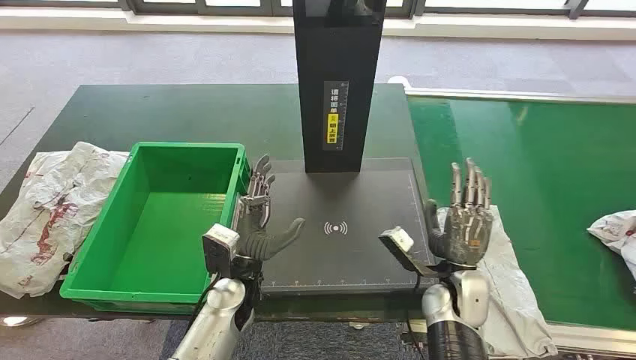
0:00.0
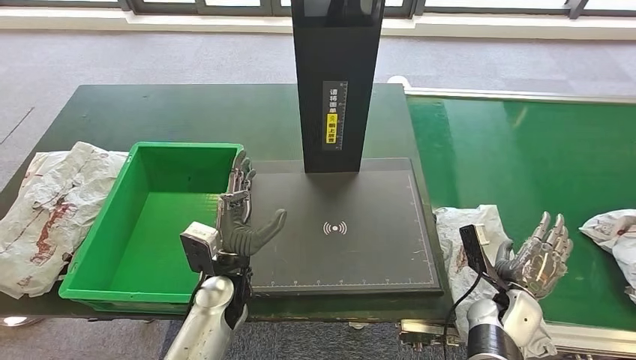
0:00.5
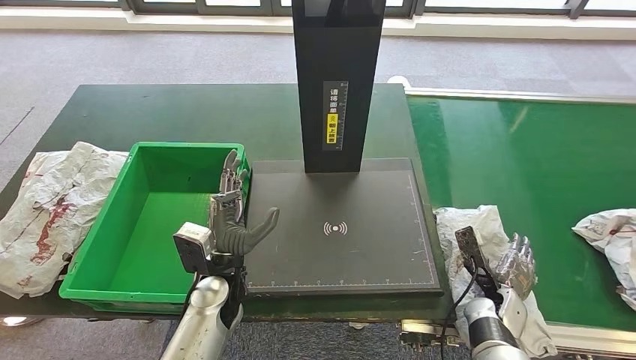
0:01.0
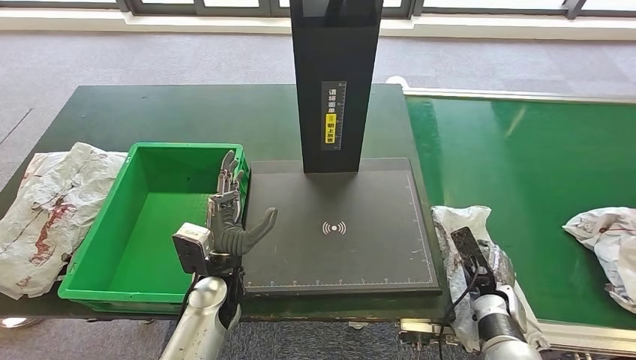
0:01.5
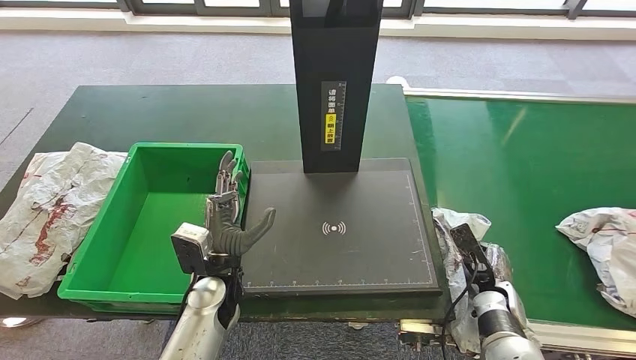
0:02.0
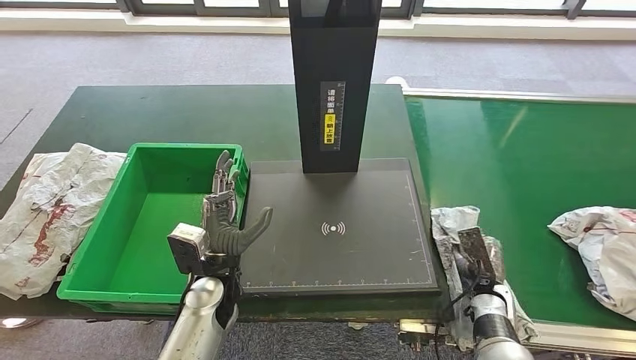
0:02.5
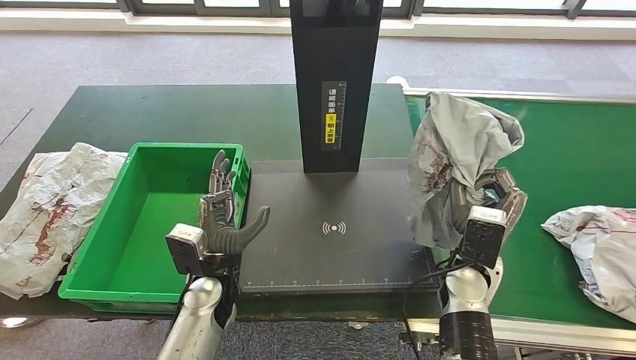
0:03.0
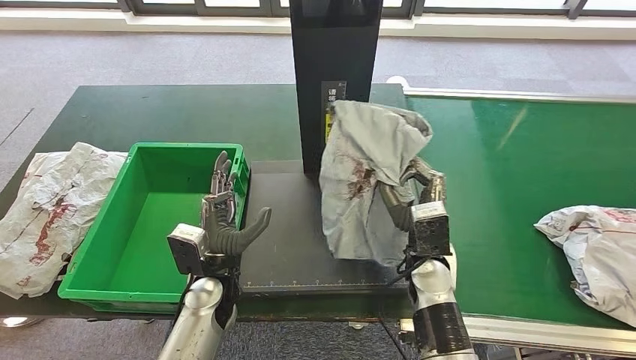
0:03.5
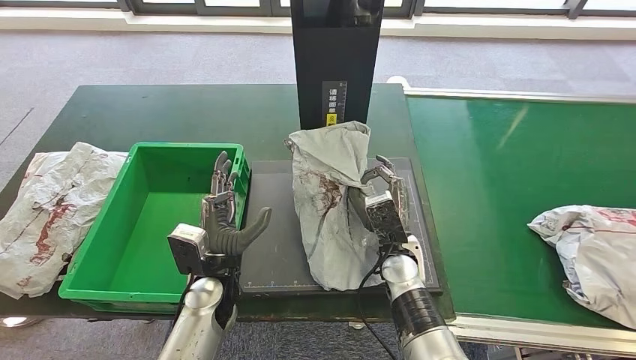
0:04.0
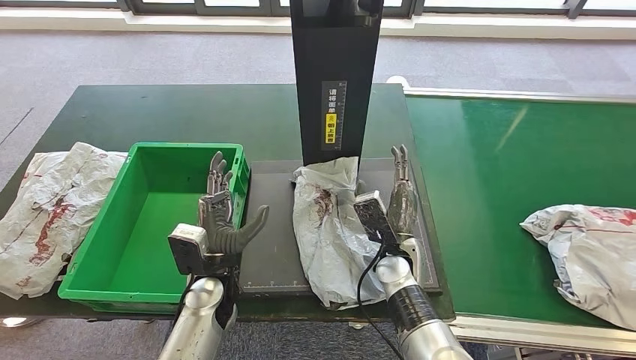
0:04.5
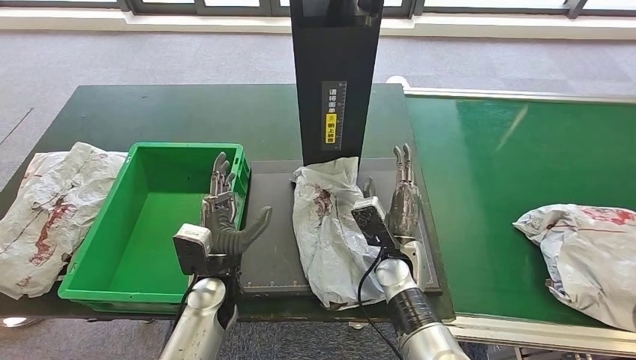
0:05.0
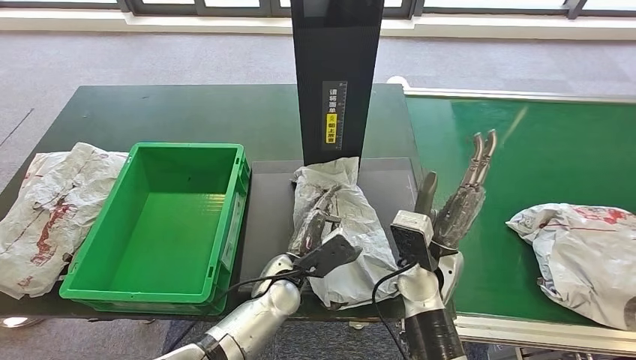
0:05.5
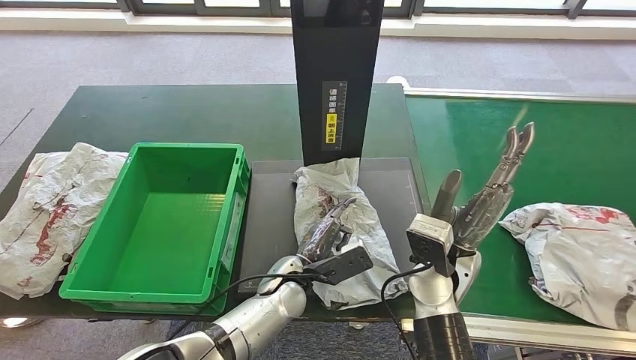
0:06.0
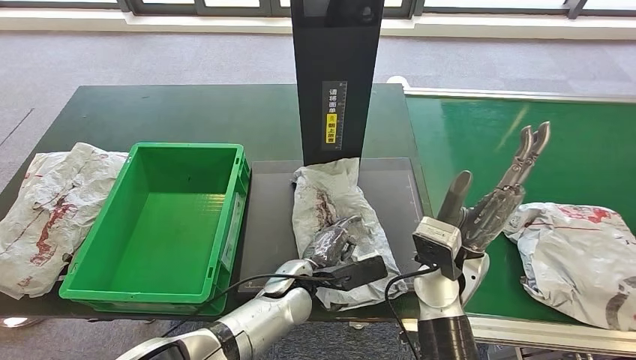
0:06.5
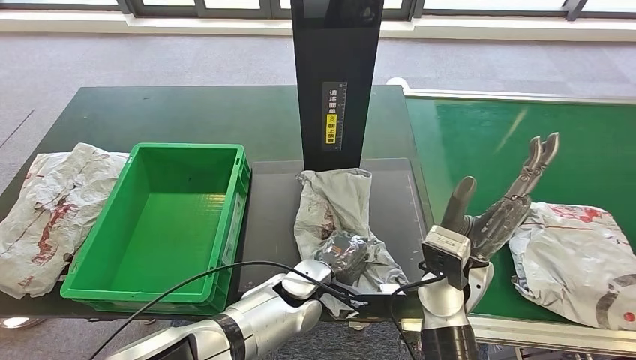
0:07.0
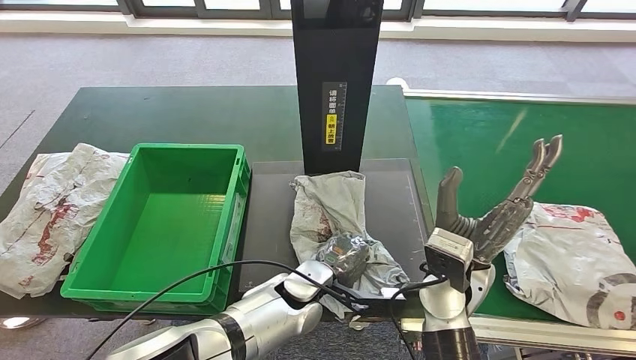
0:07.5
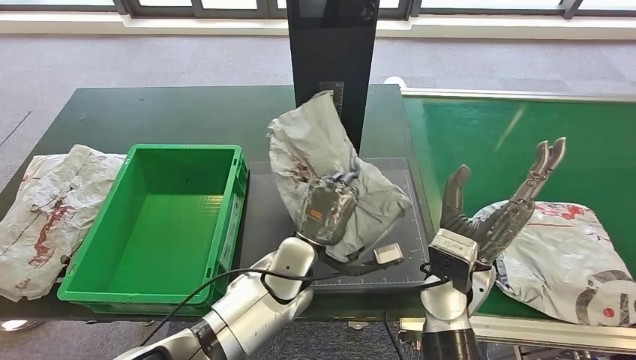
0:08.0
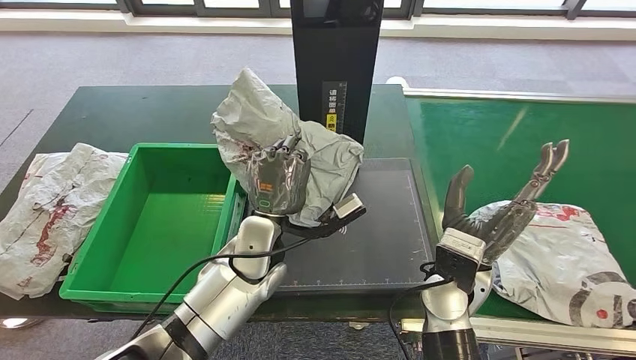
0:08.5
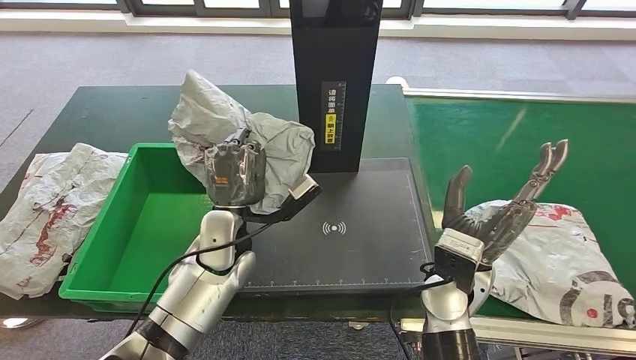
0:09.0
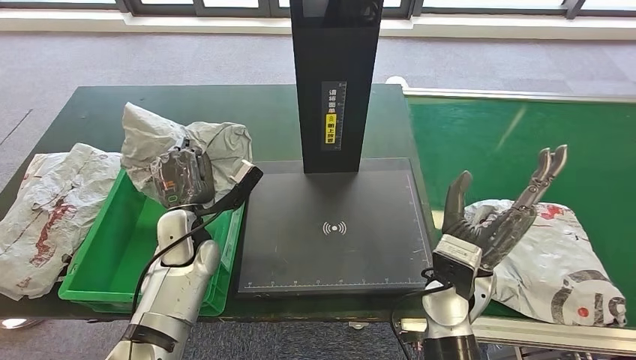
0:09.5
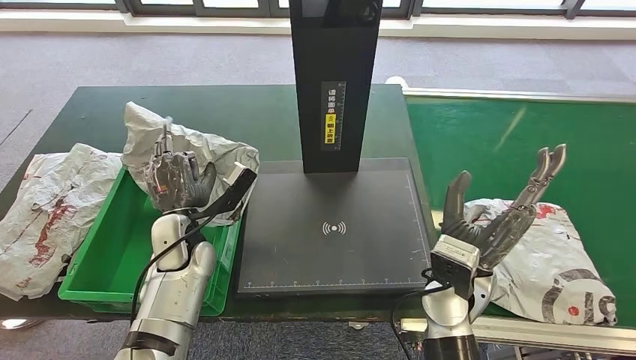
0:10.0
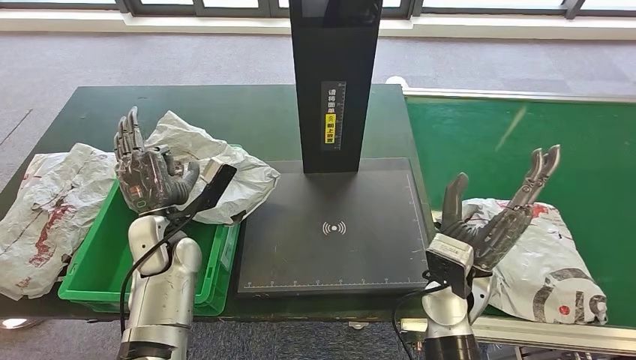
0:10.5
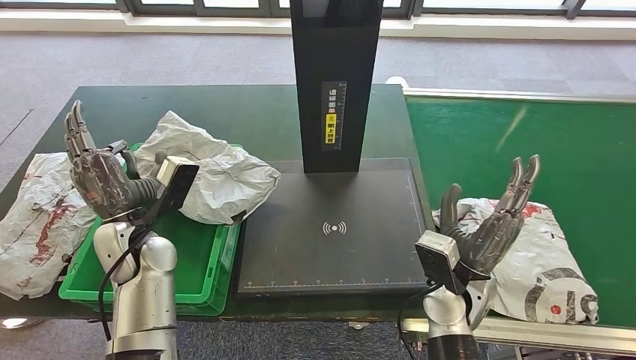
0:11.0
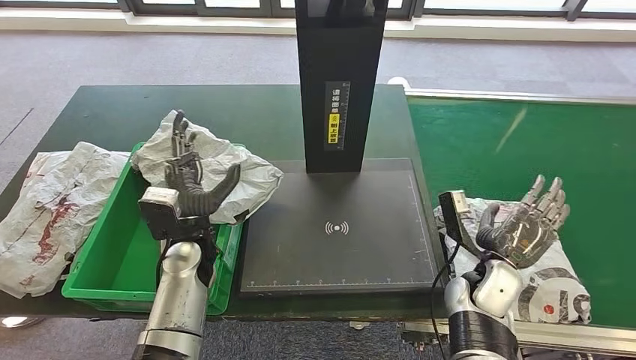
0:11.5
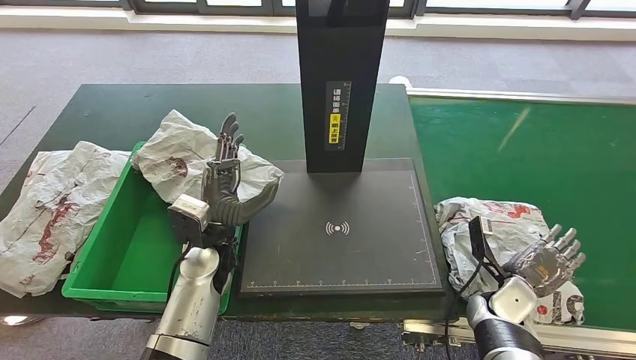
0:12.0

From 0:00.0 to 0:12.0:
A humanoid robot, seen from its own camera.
Step, from 0:00.0 to 0:03.0: Take the parcel off the conveyor belt.
Step, from 0:03.5 to 0:06.0: Place the parcel onto the inbound machine.
Step, from 0:06.5 to 0:09.0: Pick up the parcel from the inbound machine.
Step, from 0:09.5 to 0:11.0: Put the parcel inside the courier box.
From 0:02.0 to 0:04.0: The right hand goes about 25 cm to the left and upward.

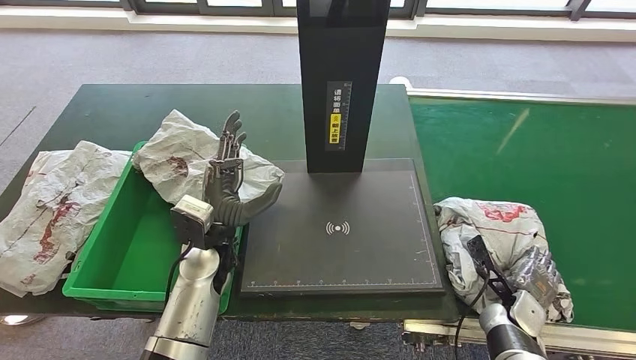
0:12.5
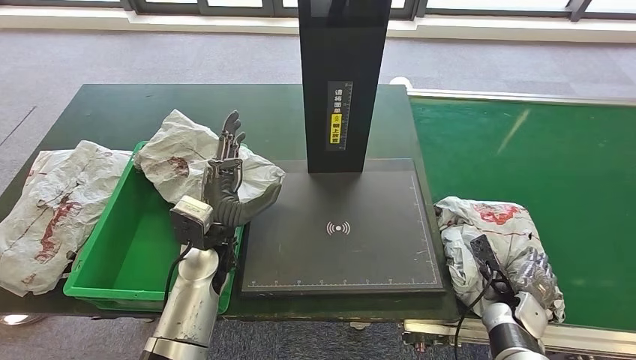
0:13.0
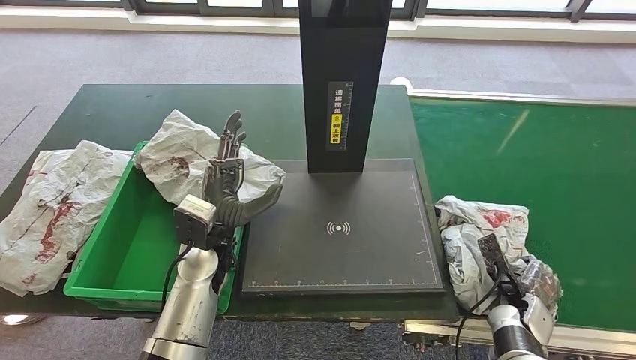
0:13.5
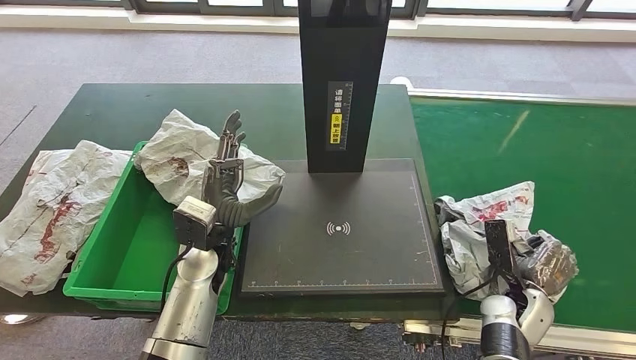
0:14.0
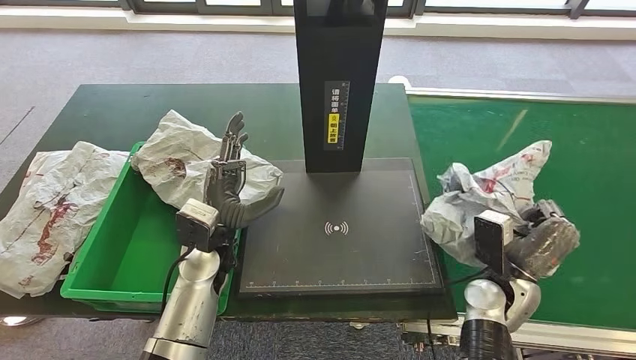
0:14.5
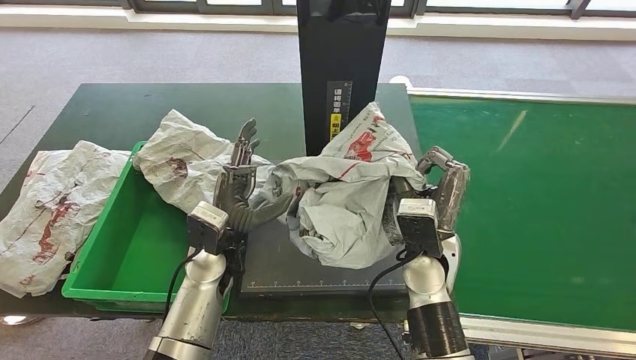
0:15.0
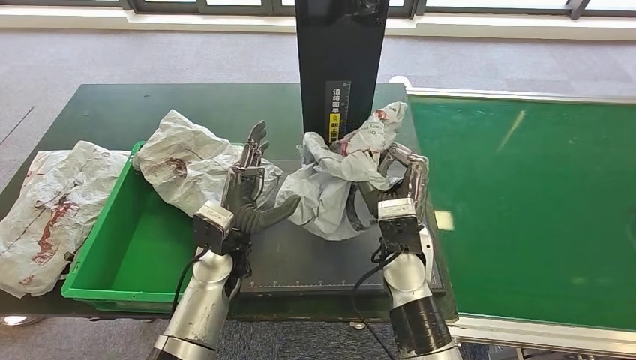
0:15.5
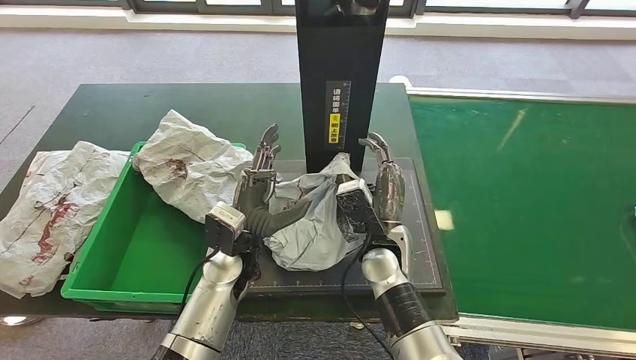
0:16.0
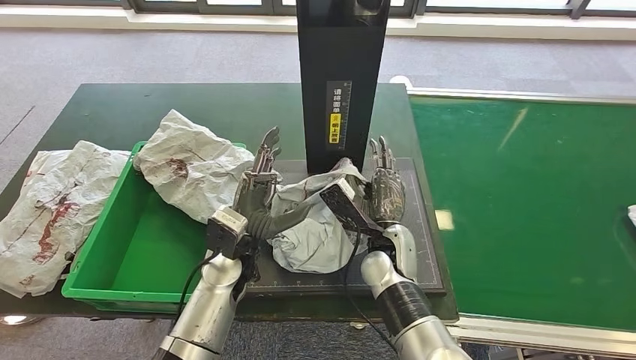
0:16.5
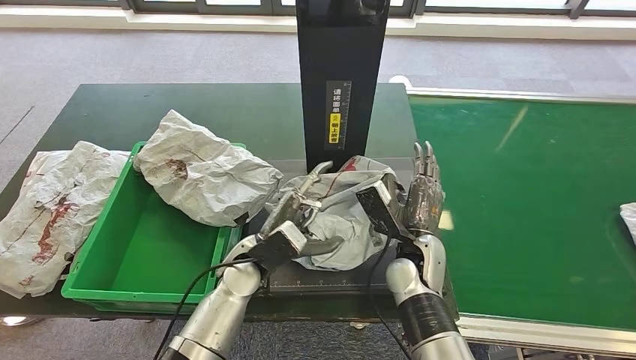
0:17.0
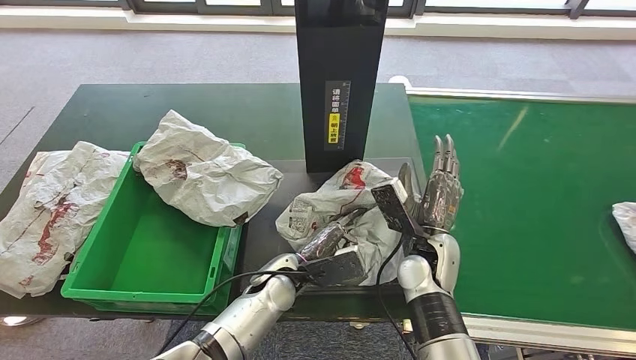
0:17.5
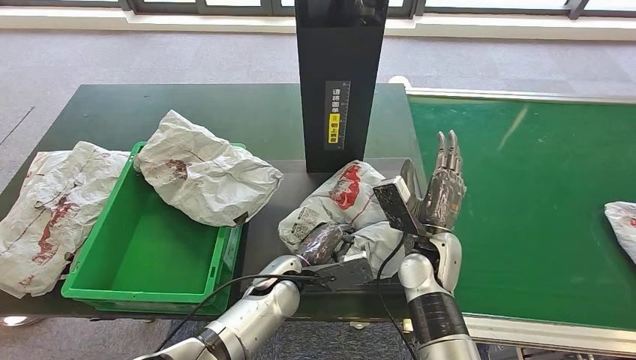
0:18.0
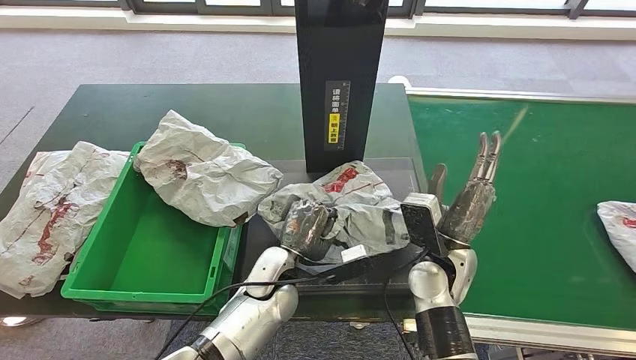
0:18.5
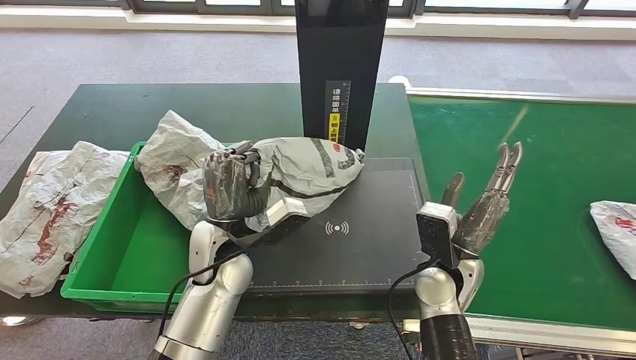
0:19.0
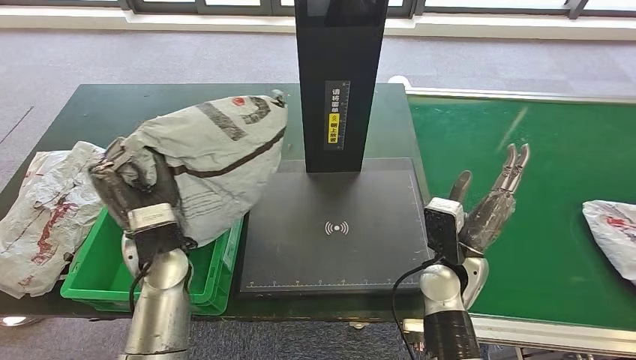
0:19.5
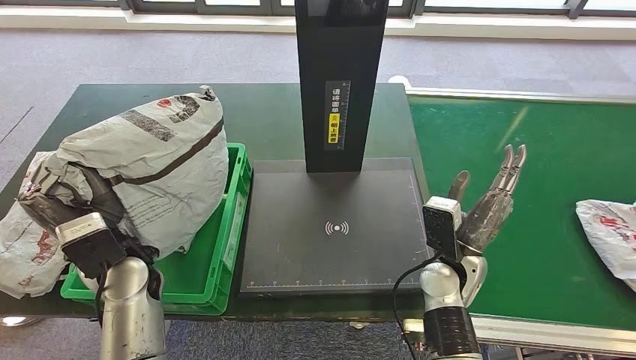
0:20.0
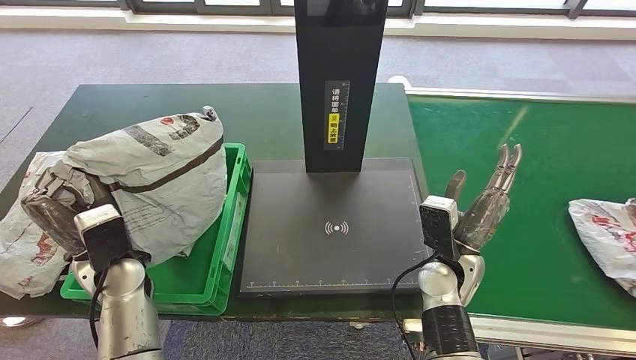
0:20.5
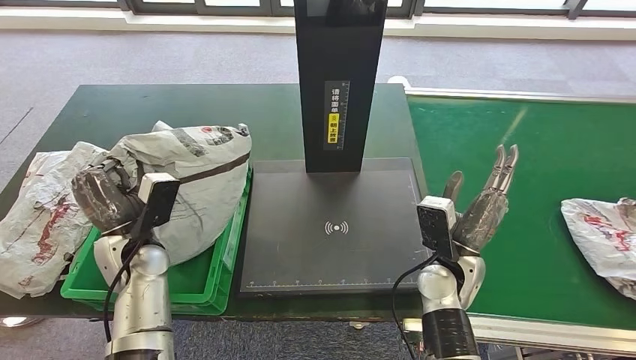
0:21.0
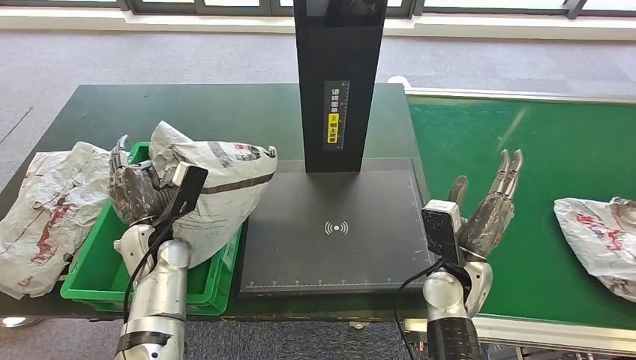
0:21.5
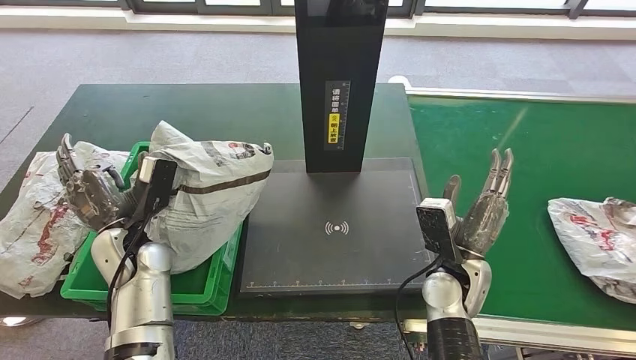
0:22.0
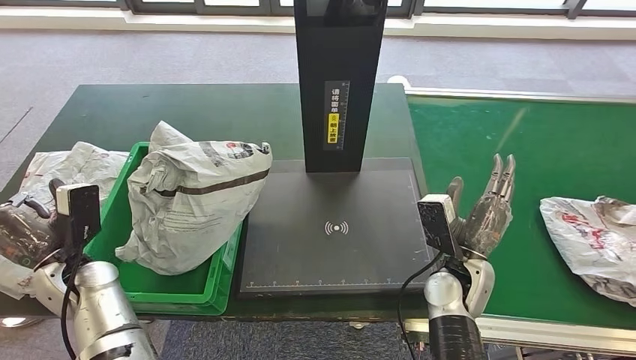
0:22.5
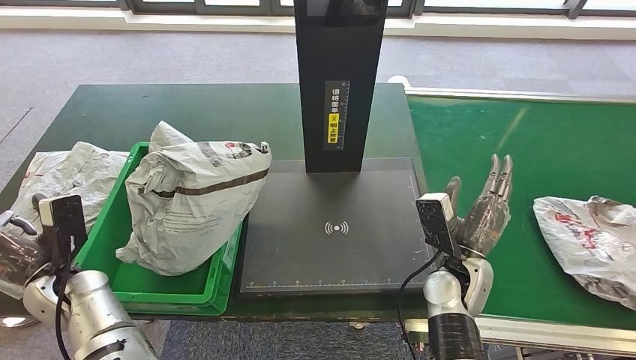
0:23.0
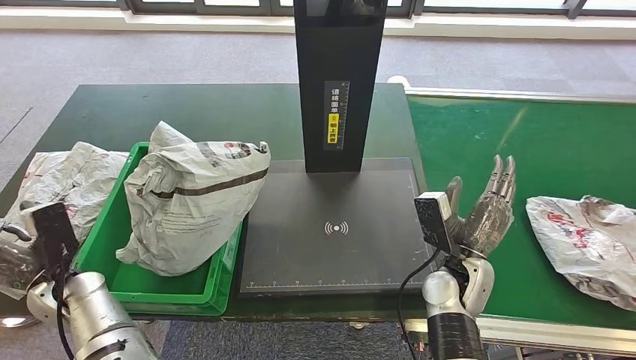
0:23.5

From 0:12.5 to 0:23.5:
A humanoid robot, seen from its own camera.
Step, from 0:12.5 to 0:15.0: Pick up the parcel from the conveyor belt.
Step, from 0:15.5 to 0:17.5: Place the parcel onto the inbound machine.
Step, from 0:18.0 to 0:19.0: Pick up the parcel from the inbound machine.
Step, from 0:19.5 to 0:23.0: Place the parcel into the delivery box.
From 0:12.5 to 0:14.5: The right hand shifts some 15 cm upward and to the left.
From 0:16.0 to 0:18.0: The left hand travels to the right and downward by about 10 cm. Meanwhile the right hand moves to the right, some 5 cm.
From 0:21.5 to 0:23.5: The left hand moves to the left and backward, approximately 15 cm.
